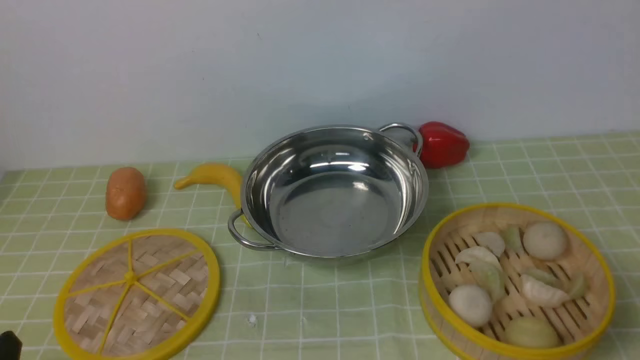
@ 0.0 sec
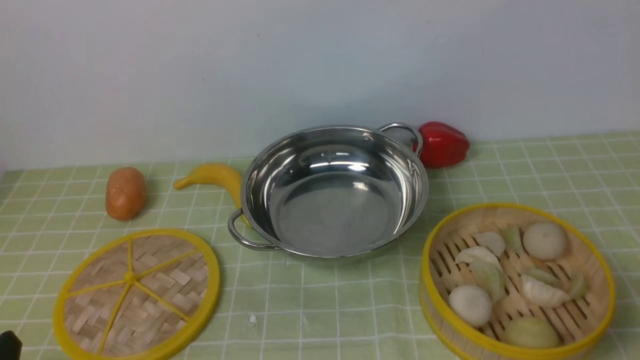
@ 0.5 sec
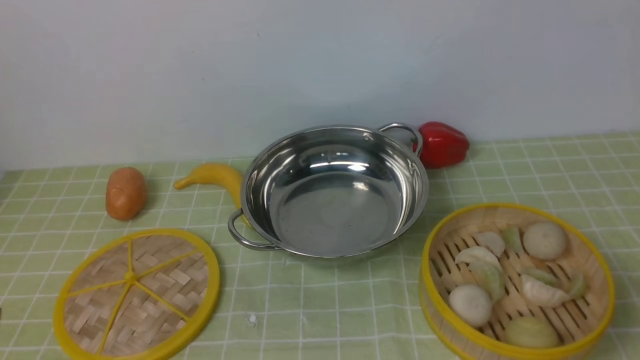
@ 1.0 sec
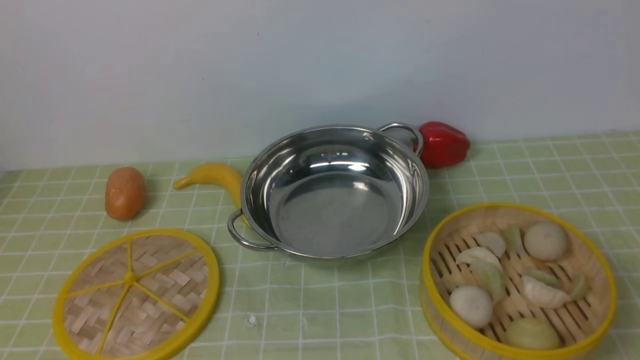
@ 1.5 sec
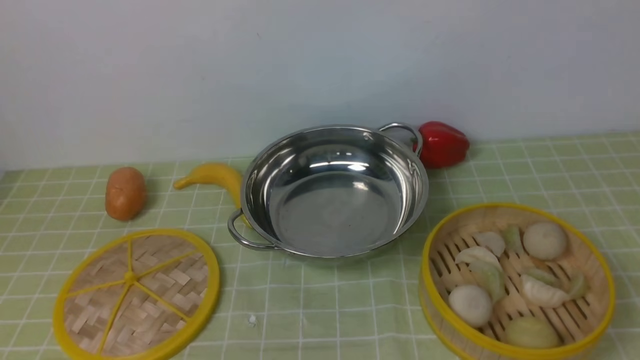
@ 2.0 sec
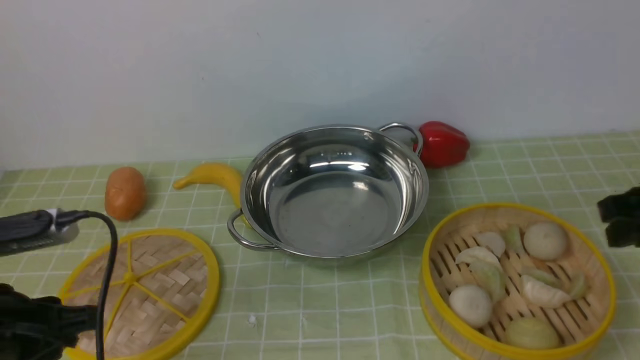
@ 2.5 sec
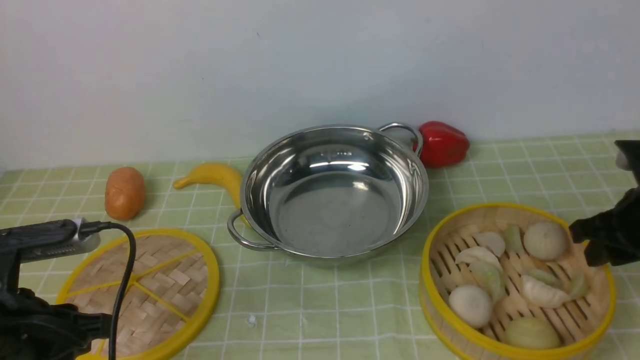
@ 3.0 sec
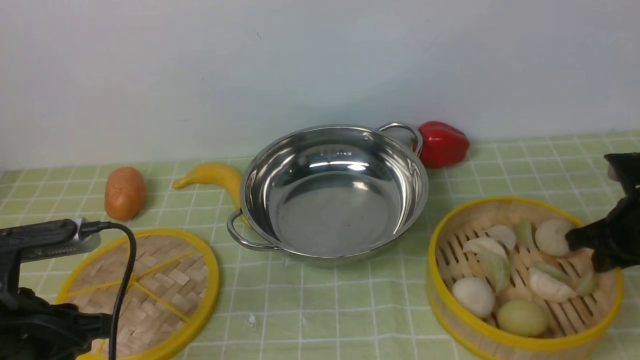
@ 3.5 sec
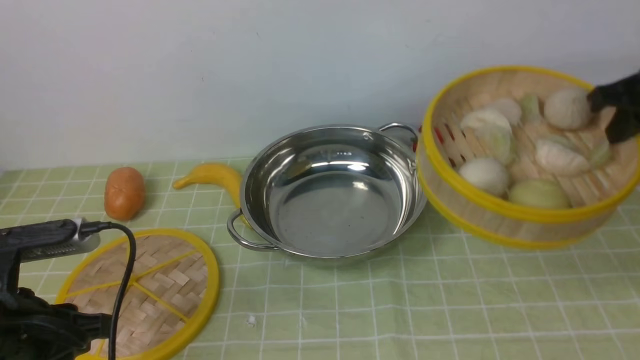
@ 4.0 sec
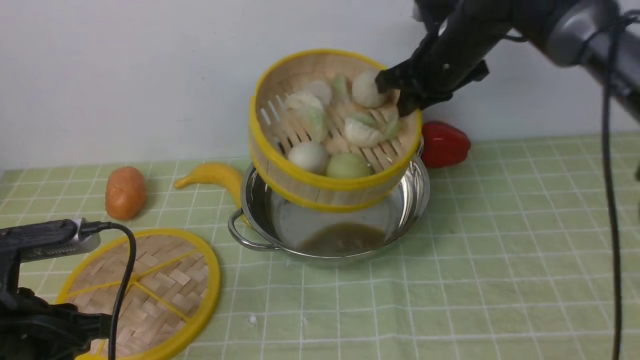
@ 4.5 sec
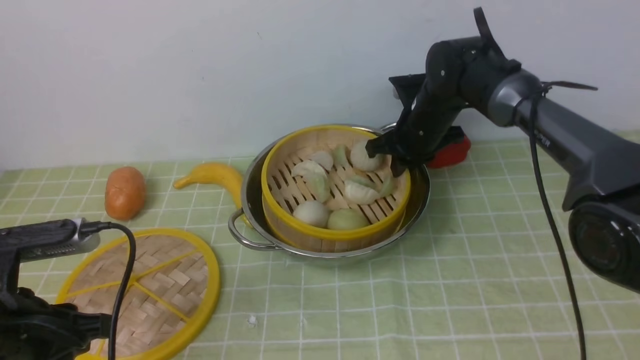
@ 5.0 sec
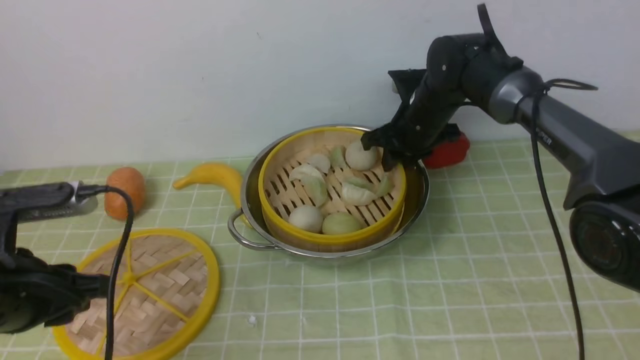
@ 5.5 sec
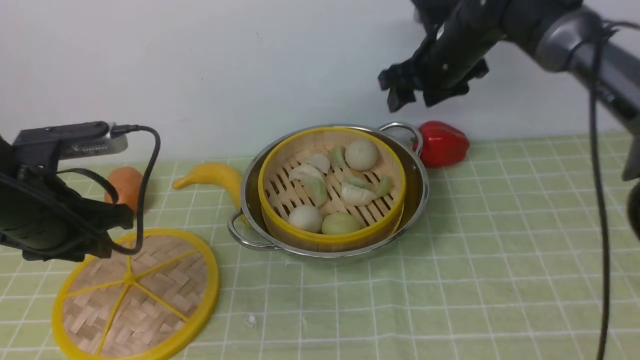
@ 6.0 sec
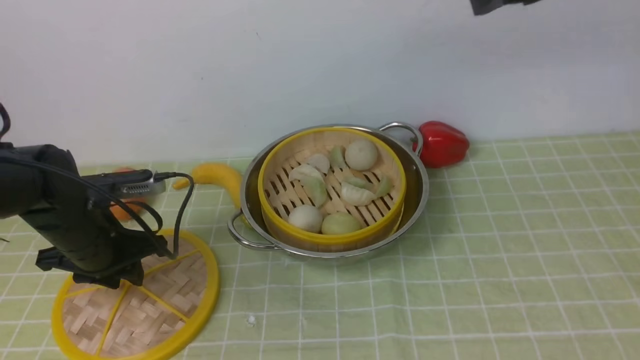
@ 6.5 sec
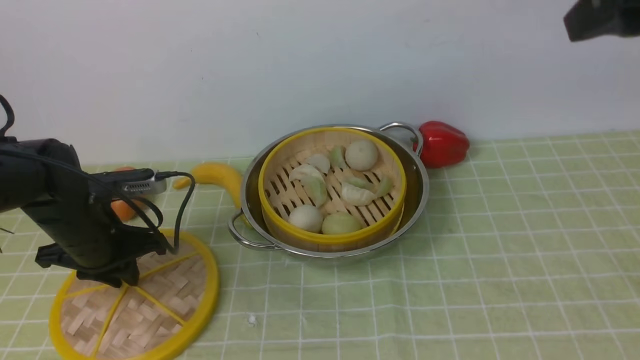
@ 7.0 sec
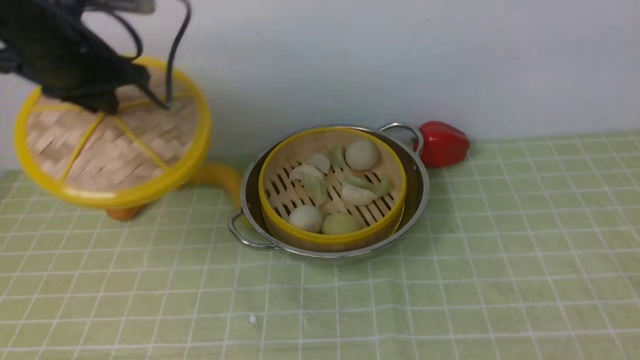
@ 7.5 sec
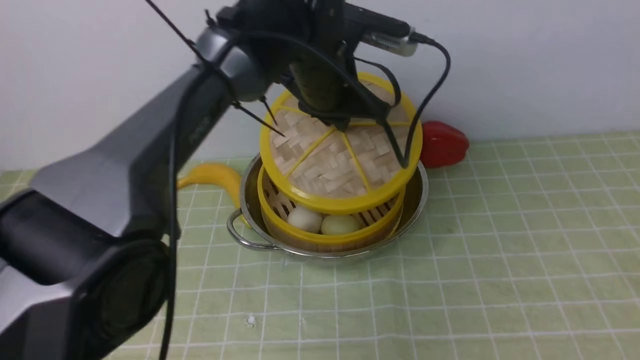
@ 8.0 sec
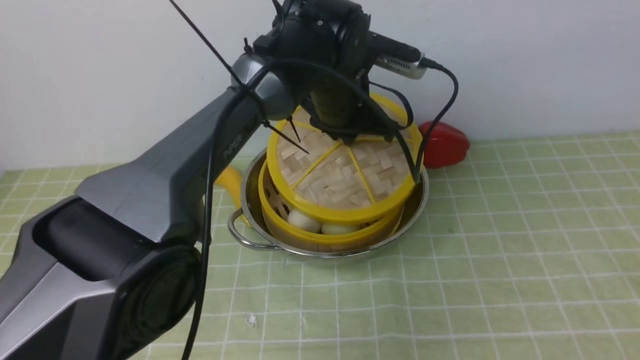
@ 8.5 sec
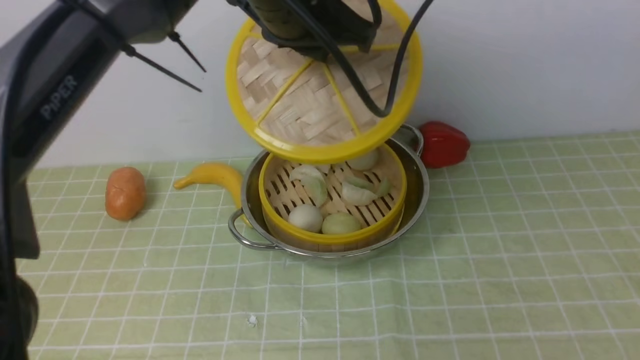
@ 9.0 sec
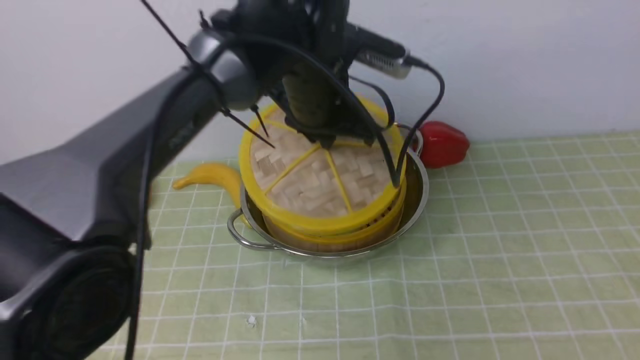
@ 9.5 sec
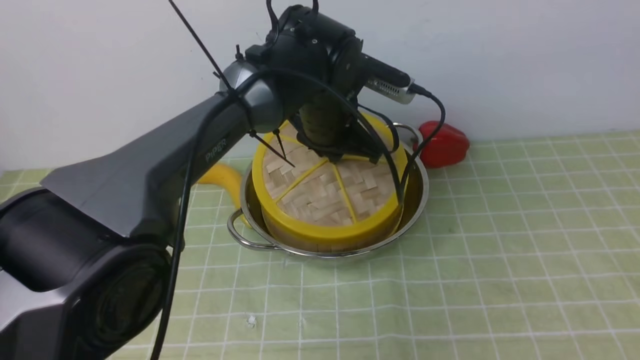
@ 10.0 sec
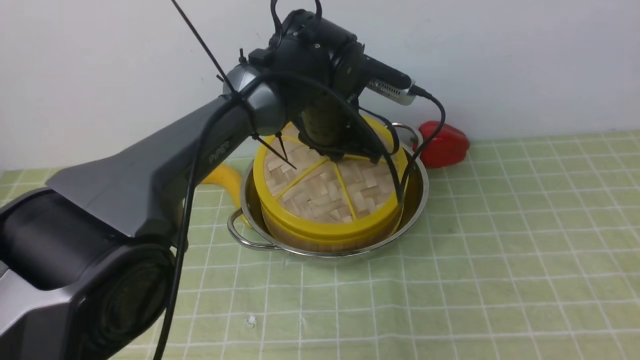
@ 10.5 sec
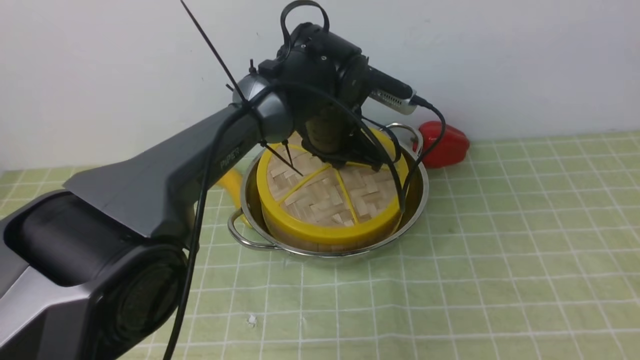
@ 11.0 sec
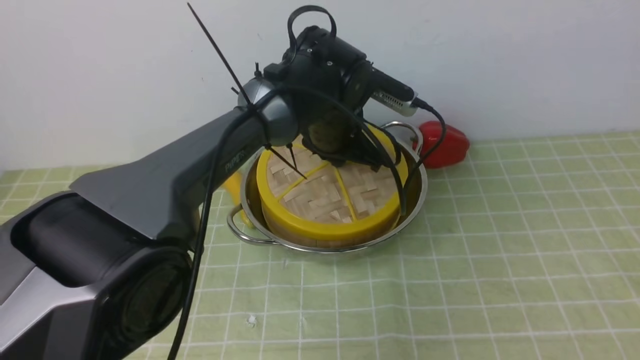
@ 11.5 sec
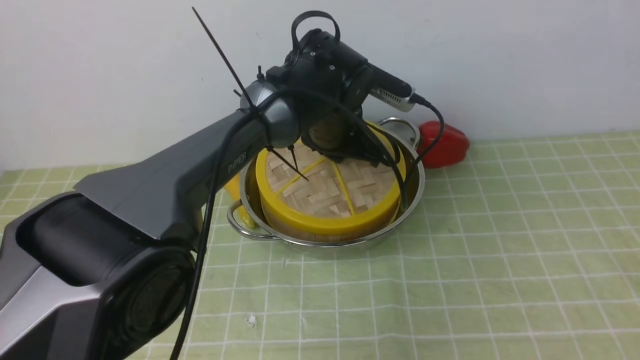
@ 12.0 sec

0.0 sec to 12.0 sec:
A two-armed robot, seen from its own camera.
Task of the whole recording: place the steamer in the pot on the green tablecloth, and put the lid on the steamer.
Step, 0.0 sec to 3.5 sec: use the right arm to lift the steamer closest to it.
Step, 4.0 sec to 6.0 sec: use the right arm to put the steamer into the iron steamer pot in the middle.
Step, 6.5 sec to 7.5 sec: use the left arm to lift the lid of the steamer.
2.0 sec to 4.0 sec: The left gripper moves downward and forward, about 15 cm. Meanwhile the right gripper travels forward and downward by some 25 cm, and closes.
4.0 sec to 6.0 sec: The right gripper shifts some 20 cm to the left and forward, and opens its fingers, while the left gripper heads forward, covering some 10 cm.
6.0 sec to 8.0 sec: The left gripper travels to the right and forward by approximately 30 cm. The right gripper shifts about 40 cm backward, upward and to the right.
8.0 sec to 10.0 sec: The left gripper travels downward by some 5 cm.

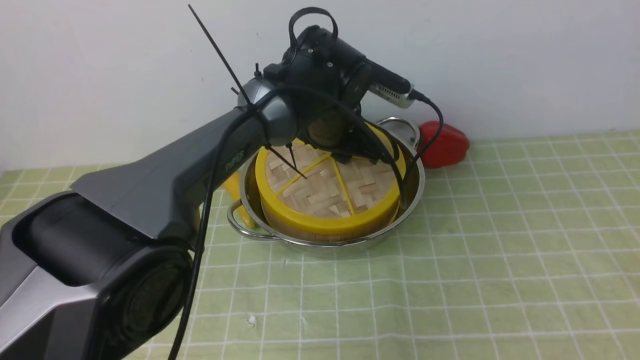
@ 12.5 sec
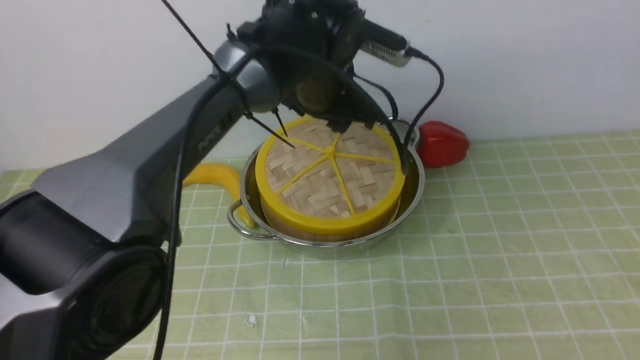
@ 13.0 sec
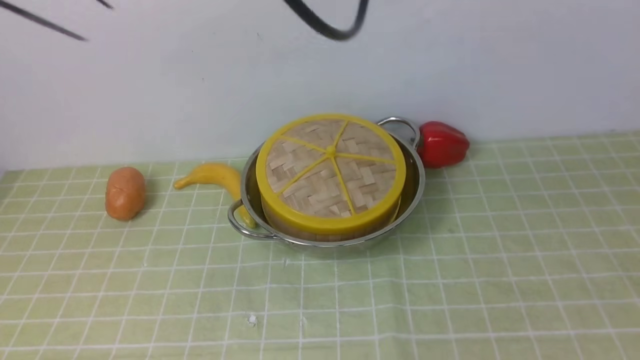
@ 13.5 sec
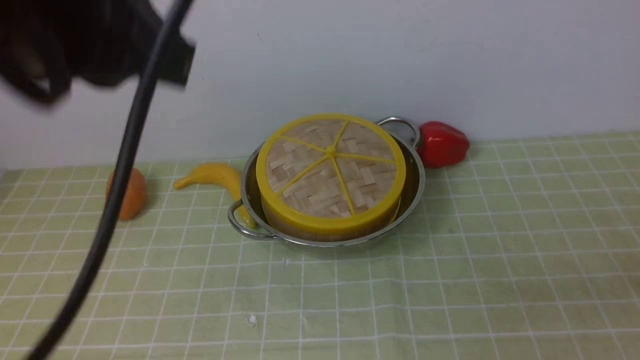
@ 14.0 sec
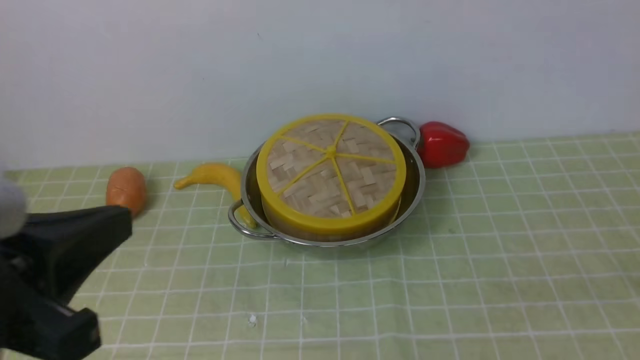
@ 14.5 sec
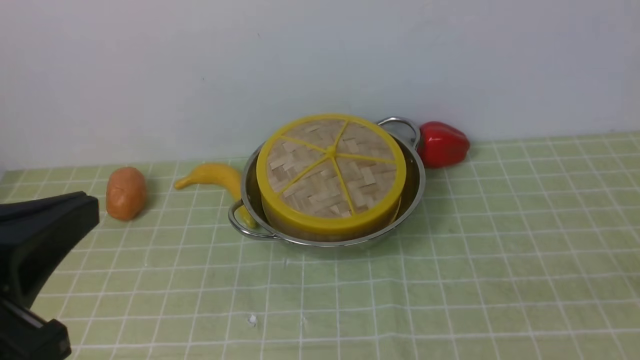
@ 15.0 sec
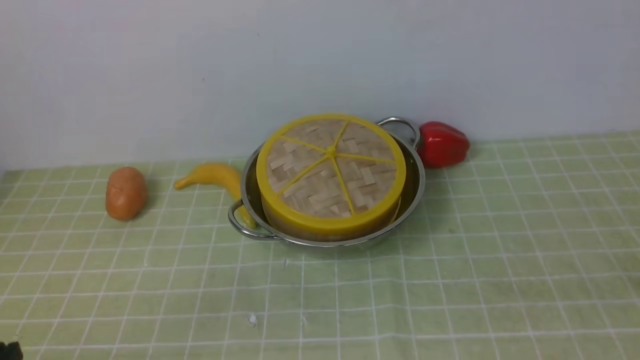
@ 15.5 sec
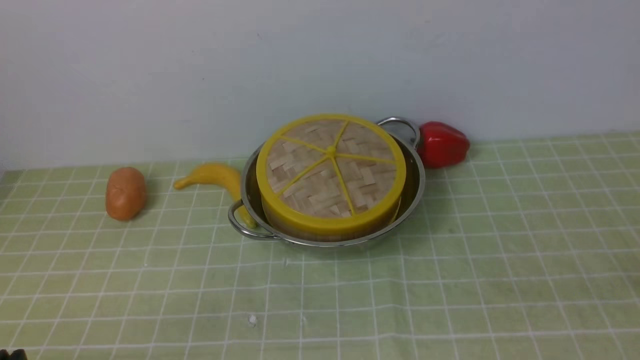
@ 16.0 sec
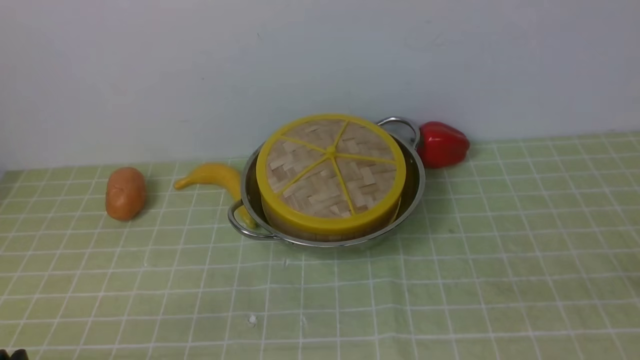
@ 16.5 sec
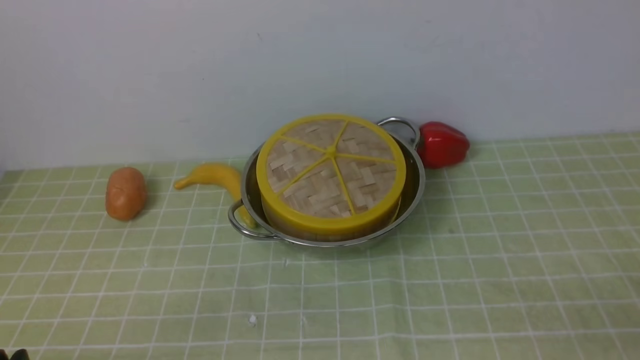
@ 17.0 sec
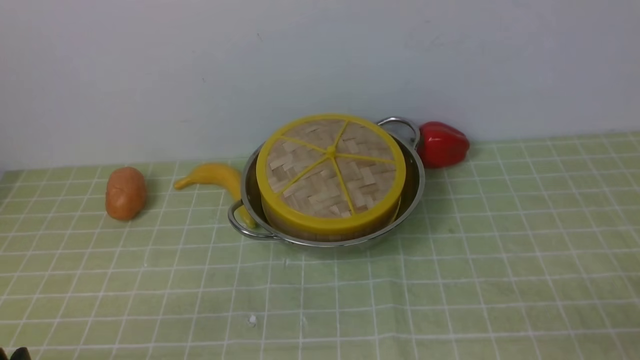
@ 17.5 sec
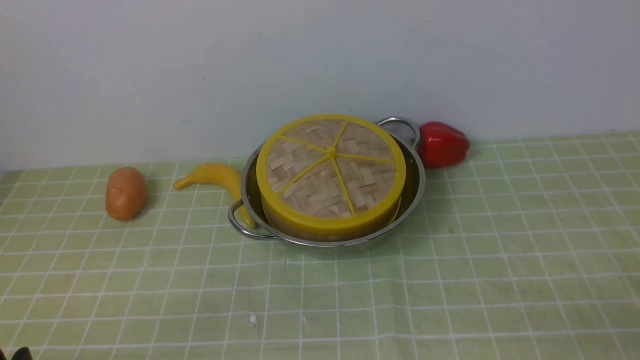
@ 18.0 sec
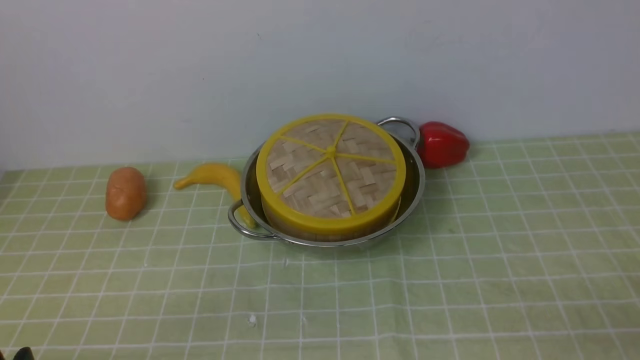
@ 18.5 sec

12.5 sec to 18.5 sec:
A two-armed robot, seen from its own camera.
Task of the whole recording: place the steamer in the pot on the green tablecloth, and put the lid on the steamer.
12.5 sec to 14.5 sec: The right gripper moves downward and backward, approximately 20 cm, and closes. Meanwhile the left gripper travels backward and to the left by roughly 40 cm, and closes up.
14.5 sec to 16.5 sec: The left gripper travels downward and to the left by roughly 20 cm.
